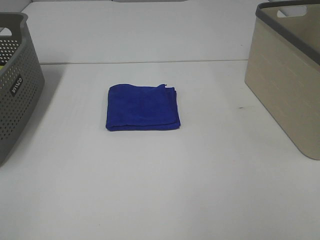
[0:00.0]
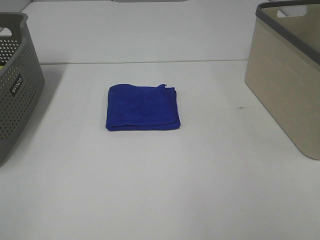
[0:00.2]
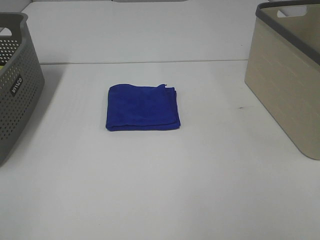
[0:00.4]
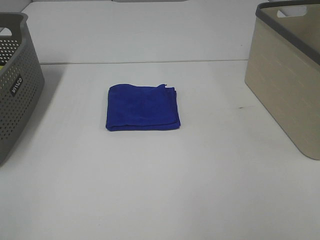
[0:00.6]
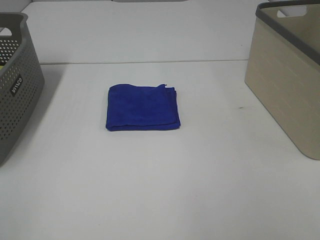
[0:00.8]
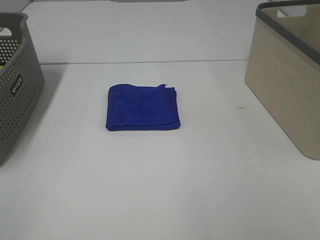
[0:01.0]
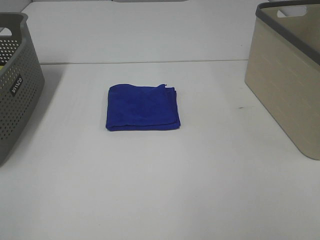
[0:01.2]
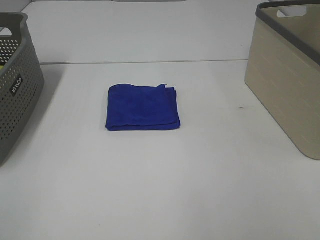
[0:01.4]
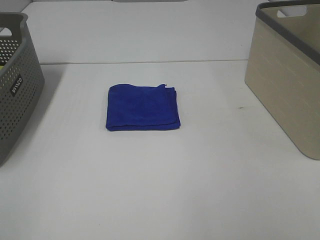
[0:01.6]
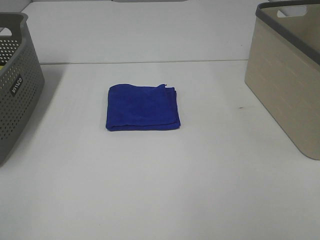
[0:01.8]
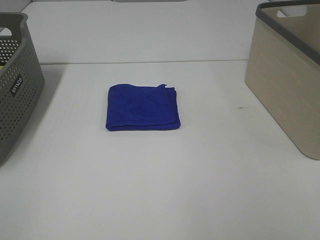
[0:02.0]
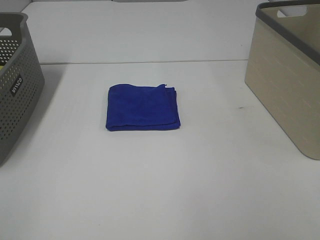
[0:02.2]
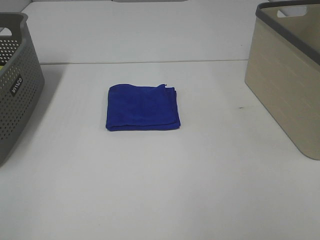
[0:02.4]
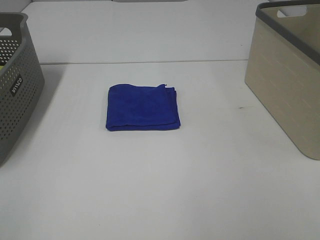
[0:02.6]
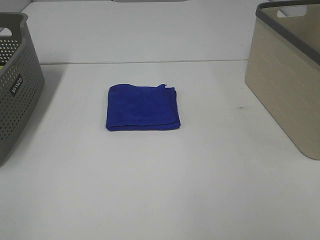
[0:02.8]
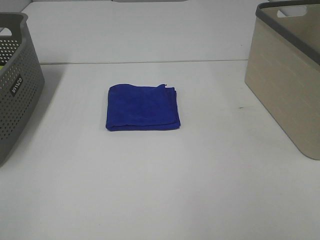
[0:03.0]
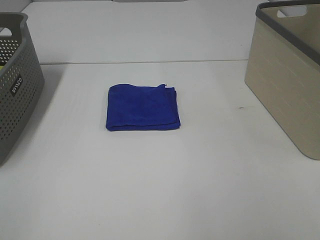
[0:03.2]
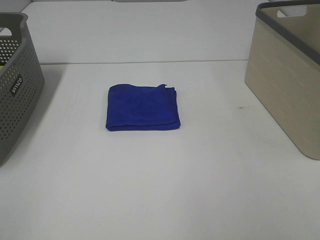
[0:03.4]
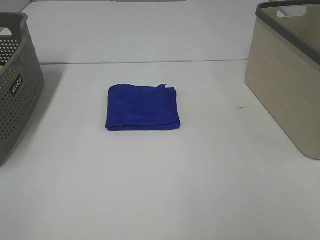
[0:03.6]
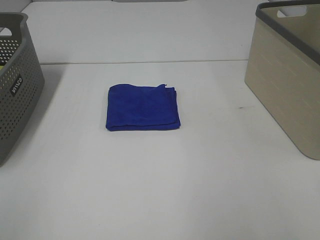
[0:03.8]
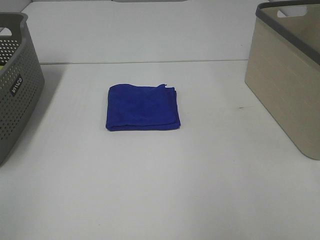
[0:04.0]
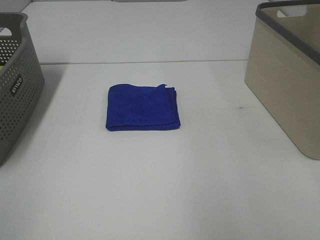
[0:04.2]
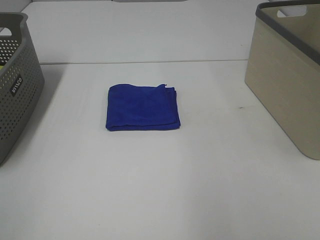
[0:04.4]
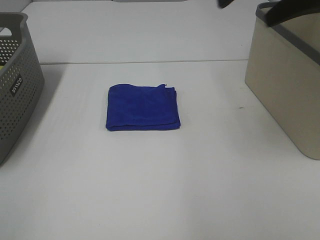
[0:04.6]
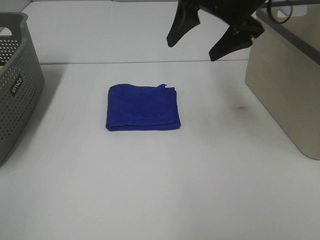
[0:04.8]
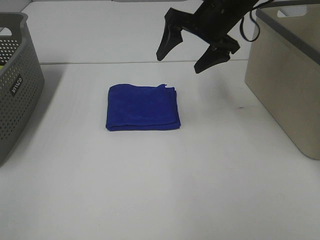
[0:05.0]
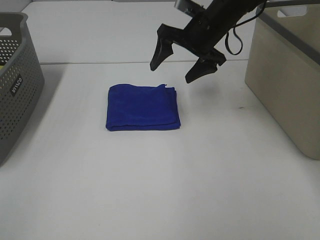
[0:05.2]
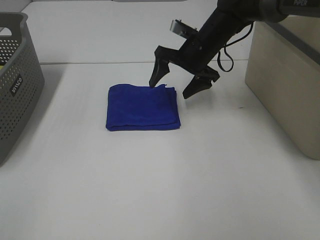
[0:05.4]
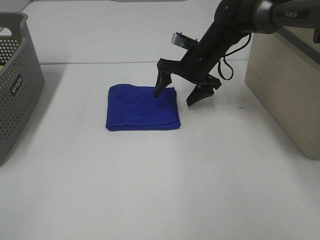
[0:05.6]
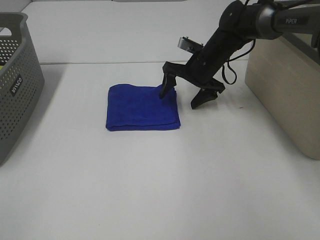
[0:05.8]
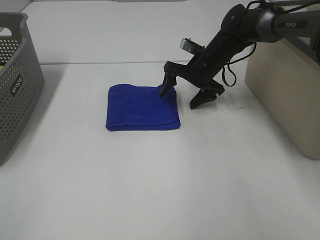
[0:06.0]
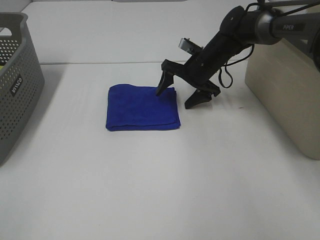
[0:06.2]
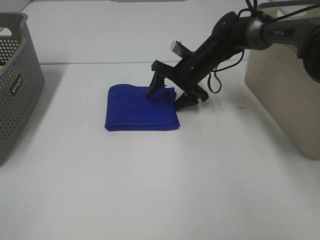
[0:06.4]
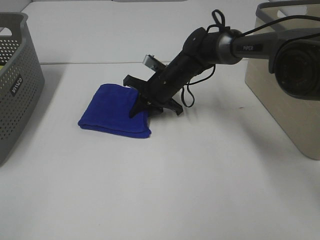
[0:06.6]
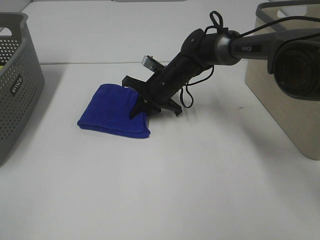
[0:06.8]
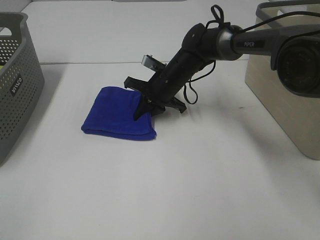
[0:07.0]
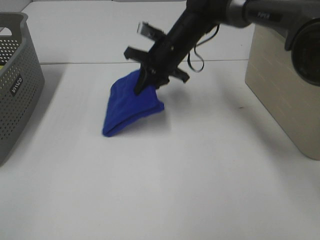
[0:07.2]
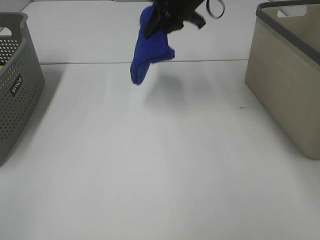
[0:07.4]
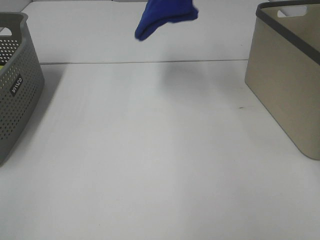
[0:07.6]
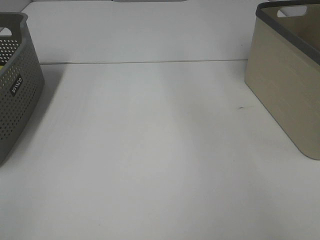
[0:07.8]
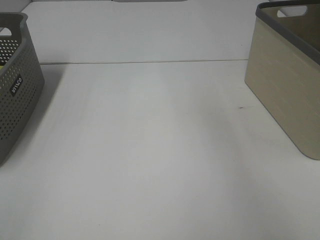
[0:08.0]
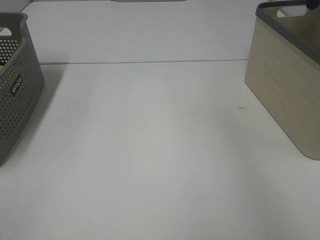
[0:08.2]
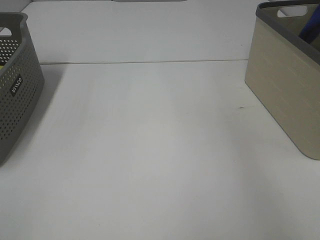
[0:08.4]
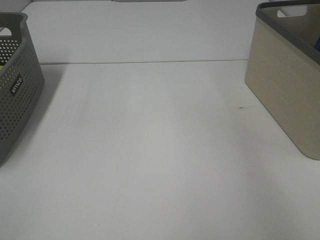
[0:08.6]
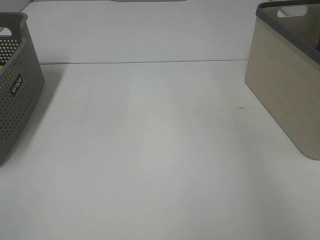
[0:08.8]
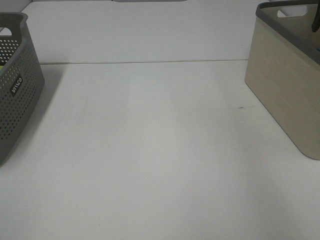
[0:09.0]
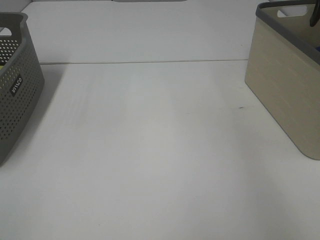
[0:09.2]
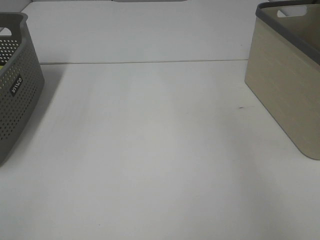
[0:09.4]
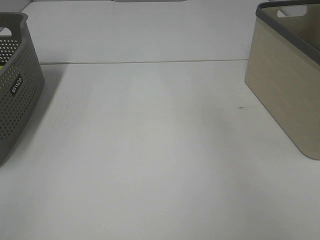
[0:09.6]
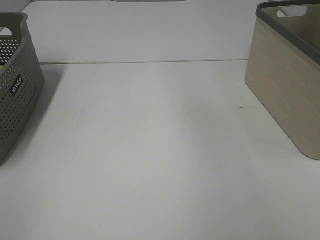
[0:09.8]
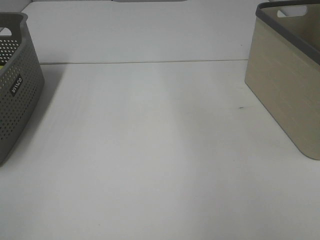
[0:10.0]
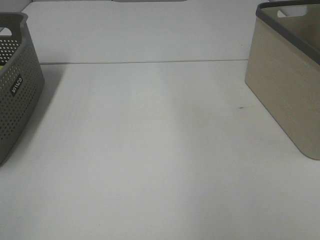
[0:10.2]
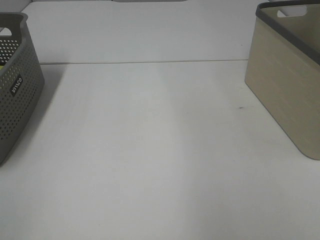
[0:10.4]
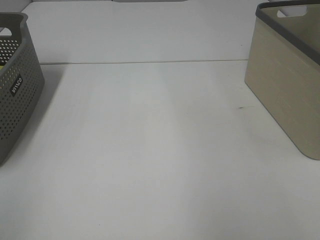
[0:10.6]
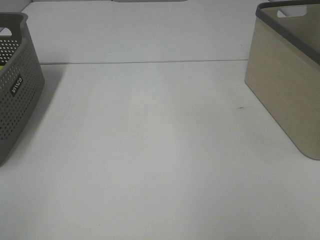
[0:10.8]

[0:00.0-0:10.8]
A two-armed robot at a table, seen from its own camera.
Step, 0:00.0 to 0:06.8: Right hand: grab the folded blue towel.
Step, 0:07.0 to 0:09.2: Right hand: place the blue towel in right basket.
0:00.0 to 0:03.0: Both grippers stay about where they are.
0:03.0 to 0:04.6: The right gripper heads forward, covering approximately 30 cm.
0:04.6 to 0:06.2: The right gripper goes some 30 cm downward and forward.
0:06.2 to 0:07.8: The right gripper travels upward and to the right by approximately 35 cm, and closes its fingers.

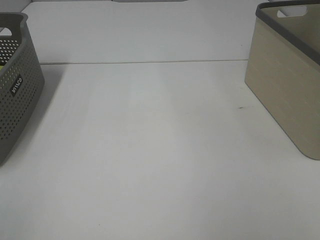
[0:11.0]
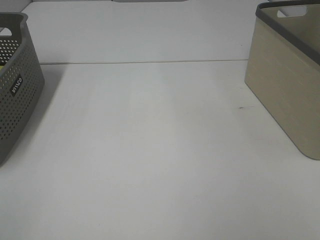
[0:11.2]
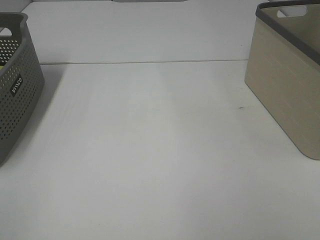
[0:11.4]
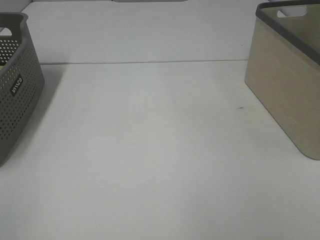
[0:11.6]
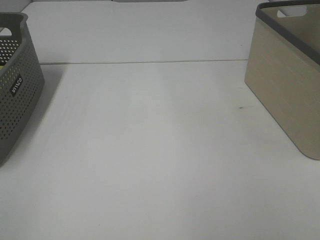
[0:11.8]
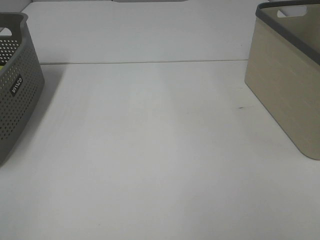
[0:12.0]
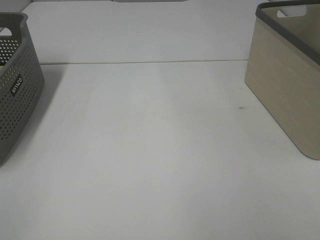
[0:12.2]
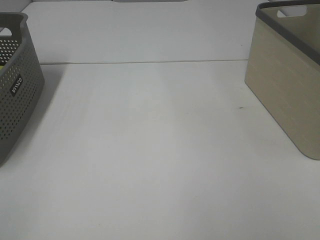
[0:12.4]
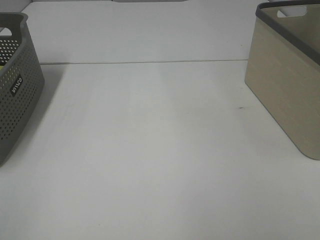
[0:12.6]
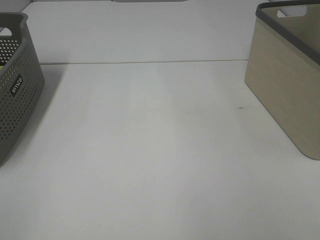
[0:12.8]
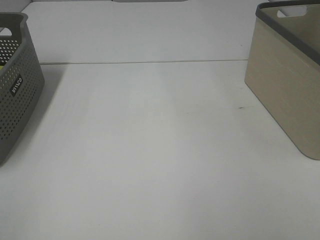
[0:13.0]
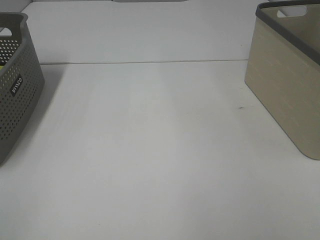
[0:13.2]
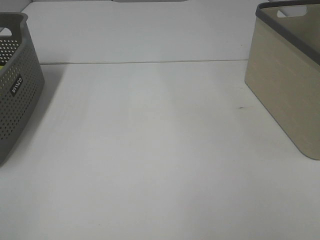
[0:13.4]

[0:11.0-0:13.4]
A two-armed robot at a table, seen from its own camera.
0:12.2 to 0:13.4: Neither gripper changes place.

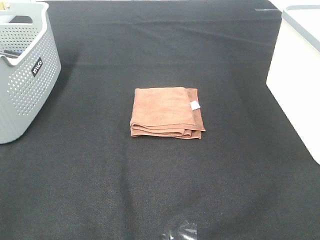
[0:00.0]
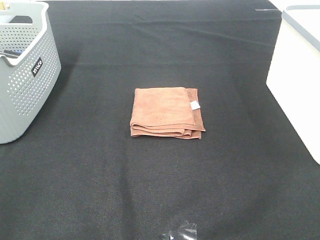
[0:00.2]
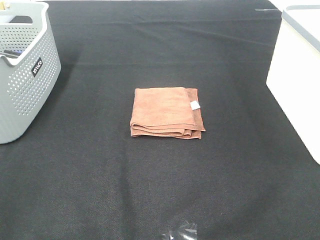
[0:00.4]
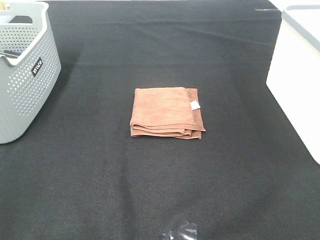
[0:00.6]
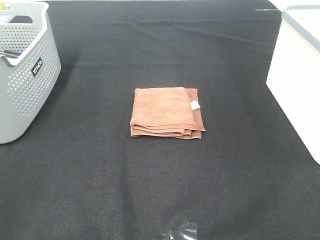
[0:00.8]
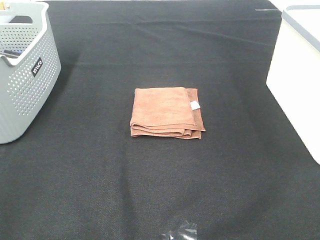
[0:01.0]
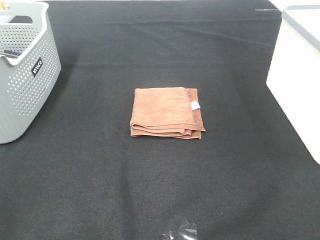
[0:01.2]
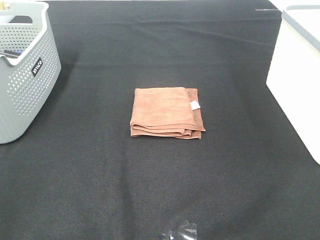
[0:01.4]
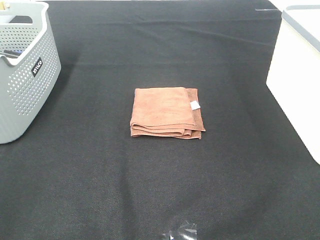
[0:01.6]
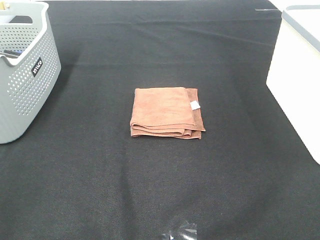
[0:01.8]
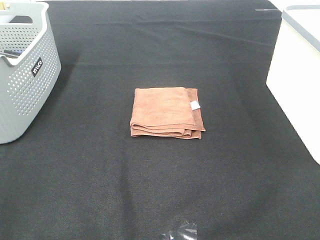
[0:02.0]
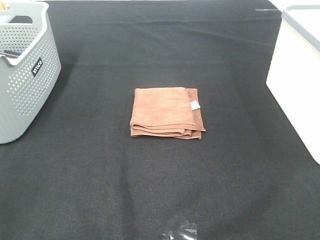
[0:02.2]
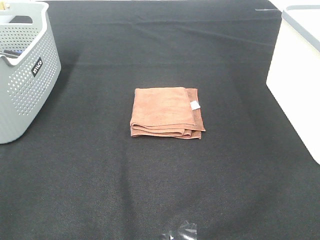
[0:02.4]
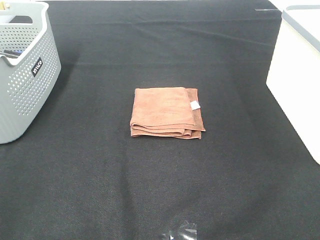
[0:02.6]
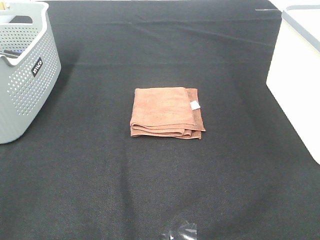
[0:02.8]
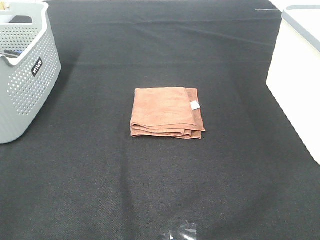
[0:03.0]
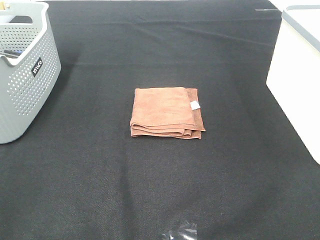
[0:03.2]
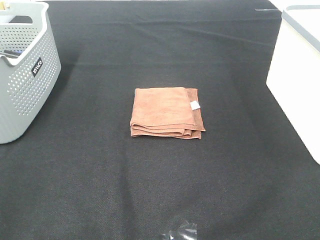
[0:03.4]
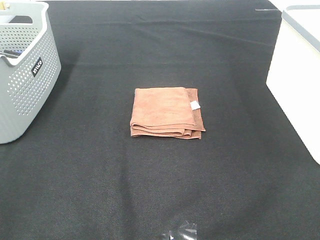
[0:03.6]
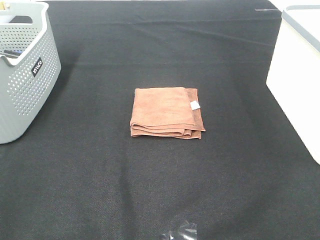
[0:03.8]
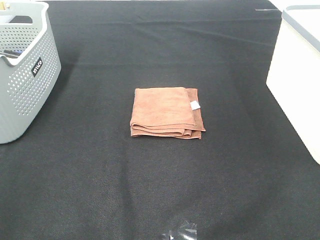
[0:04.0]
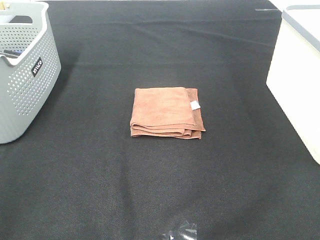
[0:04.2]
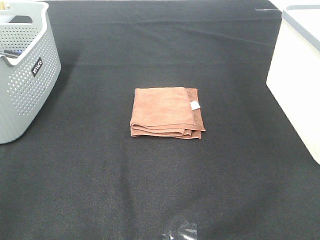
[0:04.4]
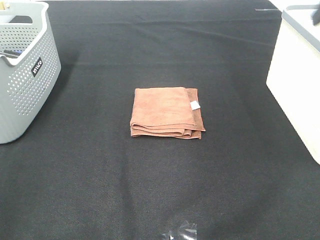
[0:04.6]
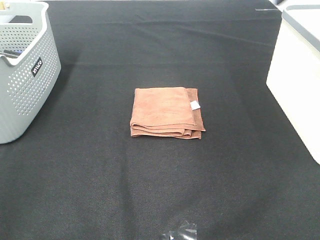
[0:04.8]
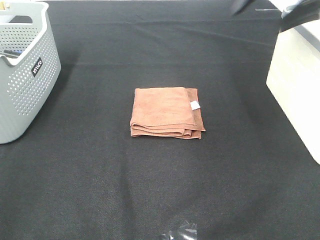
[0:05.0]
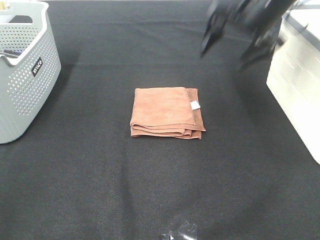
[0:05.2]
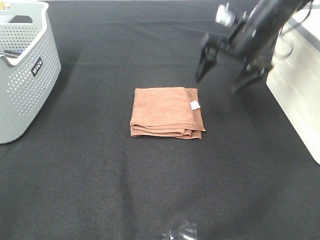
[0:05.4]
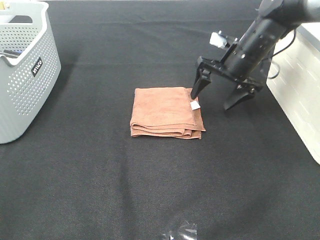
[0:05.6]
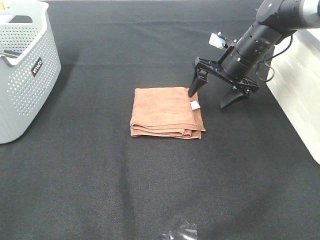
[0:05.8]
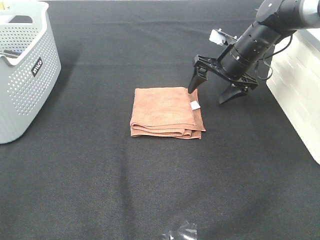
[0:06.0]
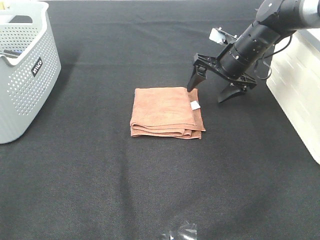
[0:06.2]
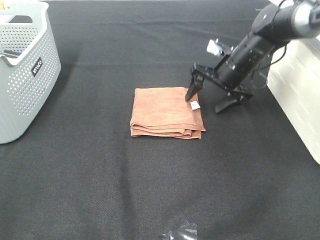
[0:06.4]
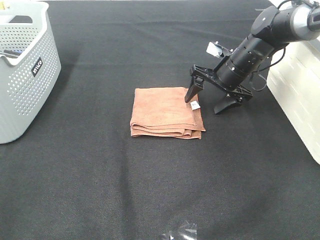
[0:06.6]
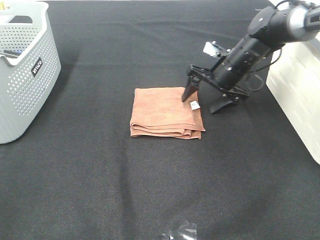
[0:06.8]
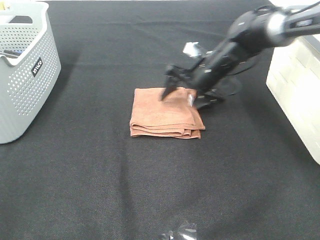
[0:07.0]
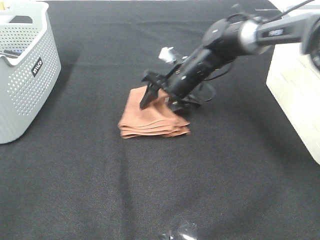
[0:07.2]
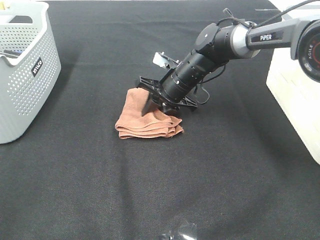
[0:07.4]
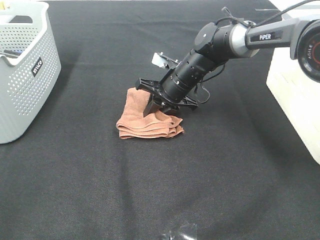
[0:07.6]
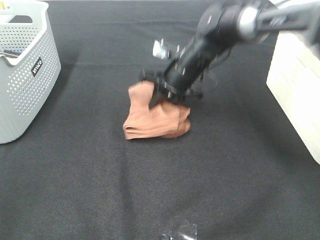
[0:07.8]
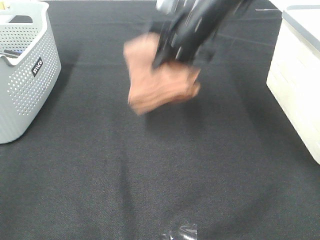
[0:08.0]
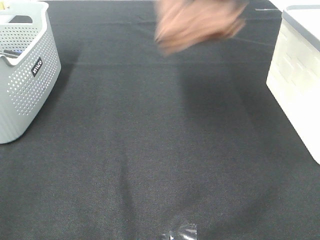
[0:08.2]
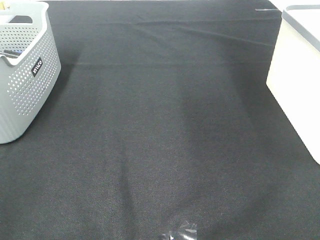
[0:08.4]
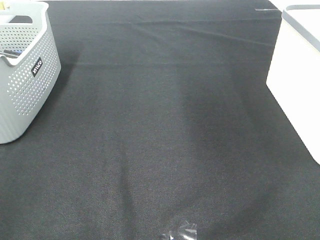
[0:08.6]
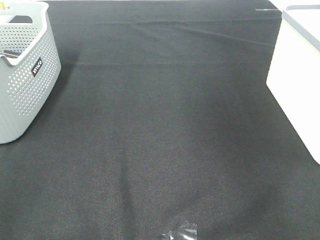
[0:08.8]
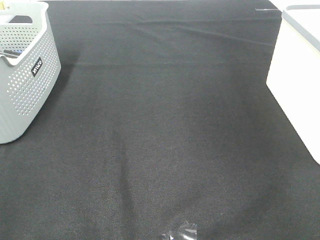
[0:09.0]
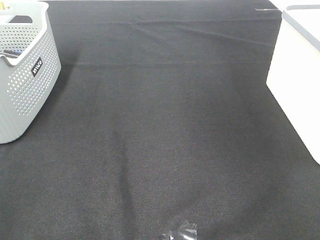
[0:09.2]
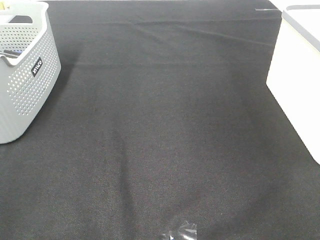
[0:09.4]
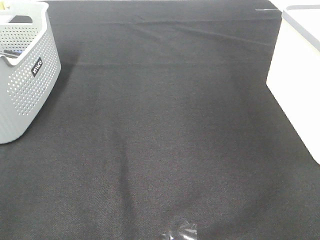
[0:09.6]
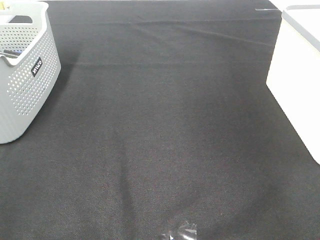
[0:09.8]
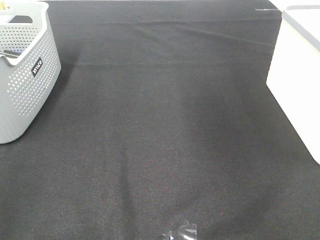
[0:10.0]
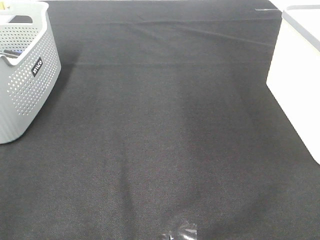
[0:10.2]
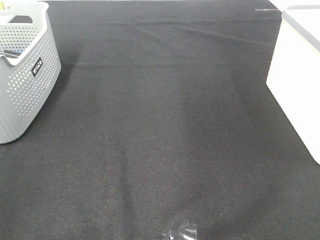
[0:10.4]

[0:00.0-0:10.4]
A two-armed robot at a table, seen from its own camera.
Step, 0:00.0 to 0:07.6: Right hand: grab the folded brown towel.
Step, 0:07.8 to 0:09.6: Right hand: place the brown towel in right basket.
0:00.0 to 0:03.0: Neither gripper changes place.
0:04.4 to 0:06.0: The right gripper travels downward, forward and to the left by some 35 cm.
0:06.0 to 0:07.4: The right gripper is displaced to the left and downward by about 15 cm, and closes.
0:07.4 to 0:09.0: The right gripper travels to the right and upward by some 50 cm.
